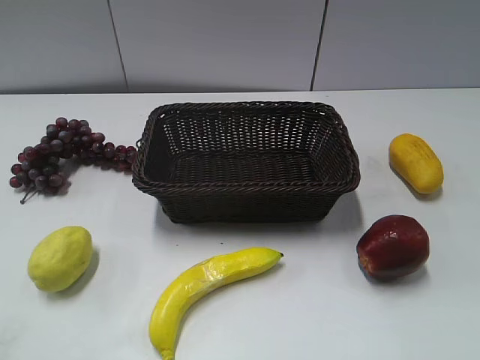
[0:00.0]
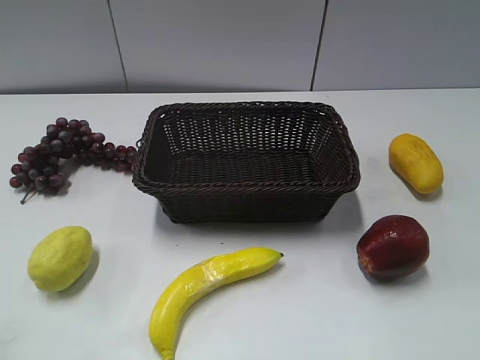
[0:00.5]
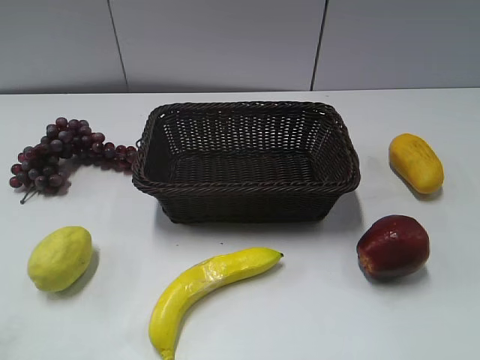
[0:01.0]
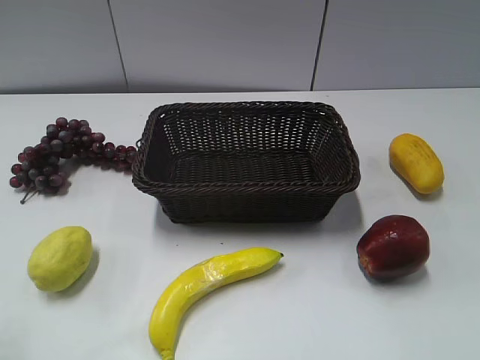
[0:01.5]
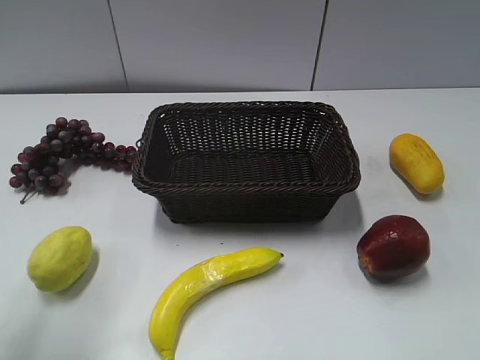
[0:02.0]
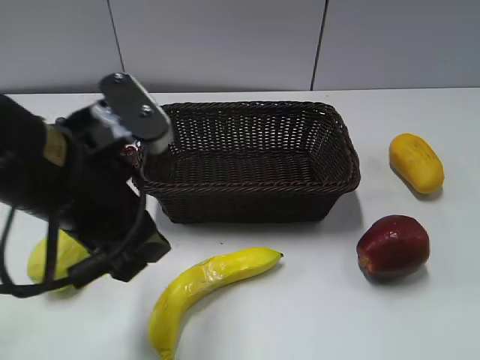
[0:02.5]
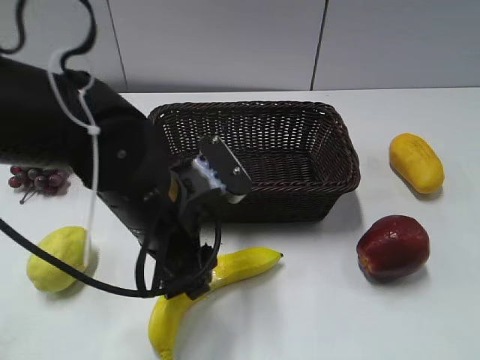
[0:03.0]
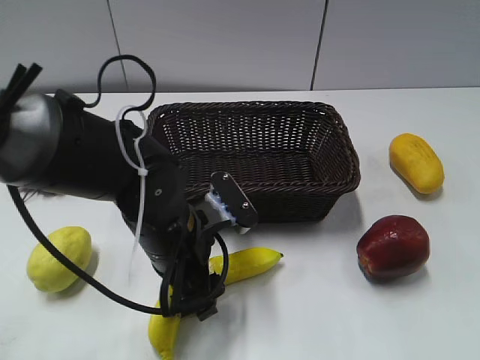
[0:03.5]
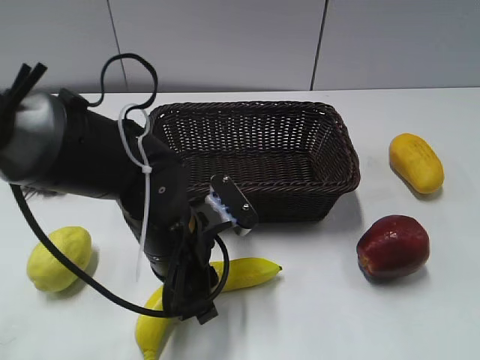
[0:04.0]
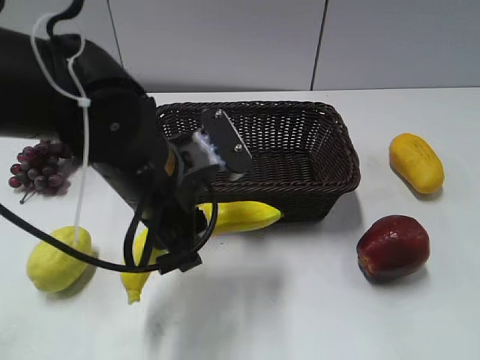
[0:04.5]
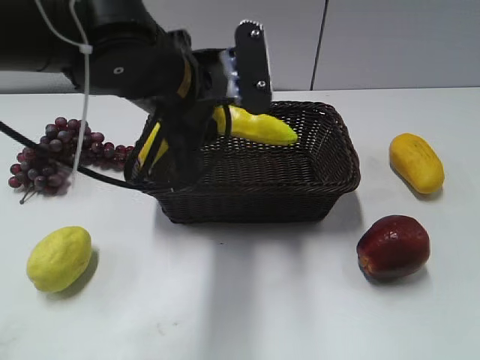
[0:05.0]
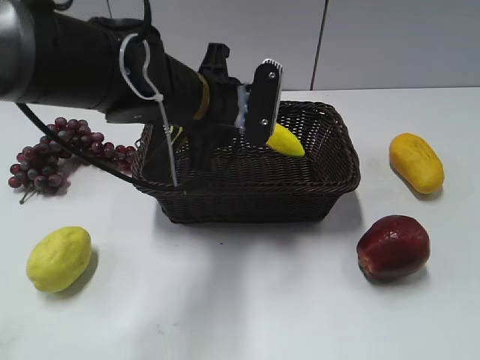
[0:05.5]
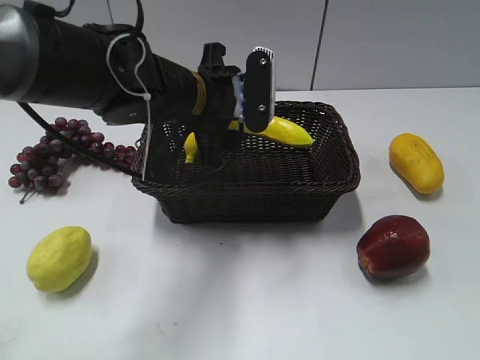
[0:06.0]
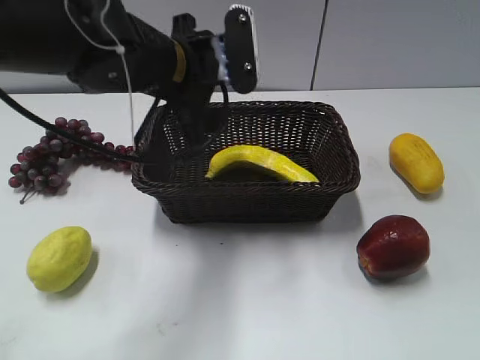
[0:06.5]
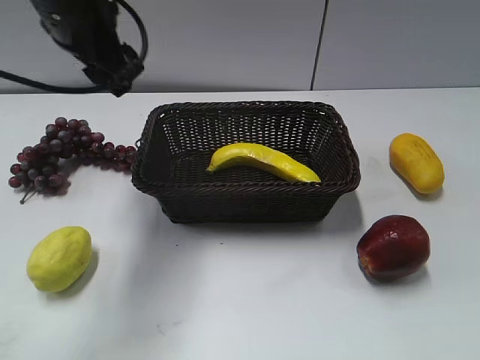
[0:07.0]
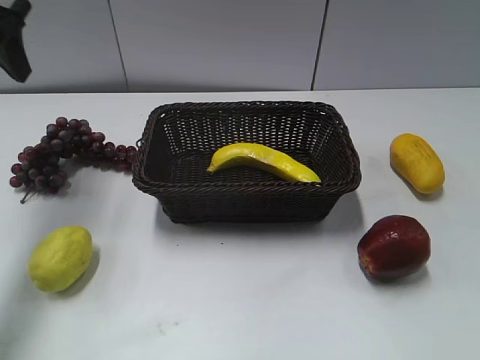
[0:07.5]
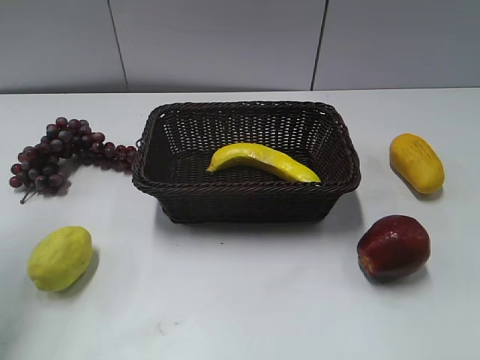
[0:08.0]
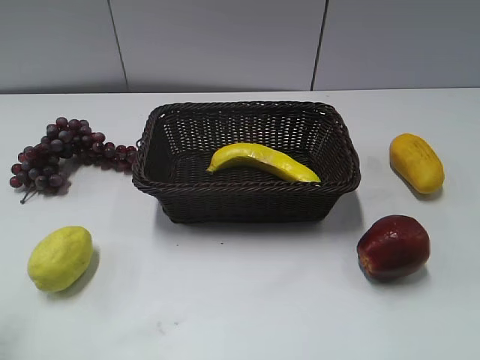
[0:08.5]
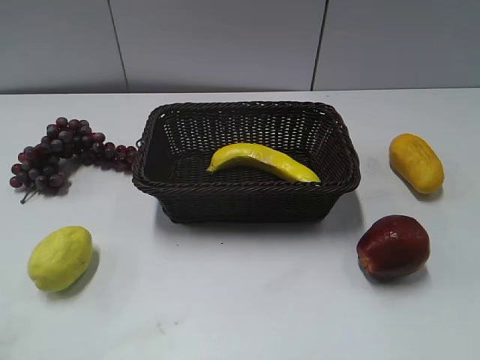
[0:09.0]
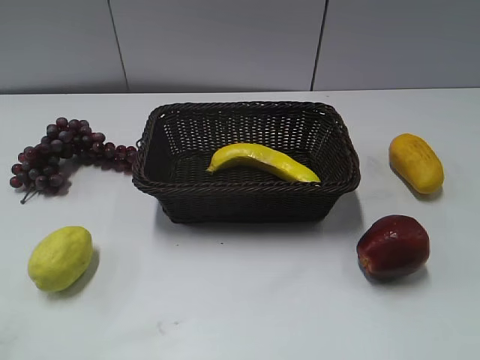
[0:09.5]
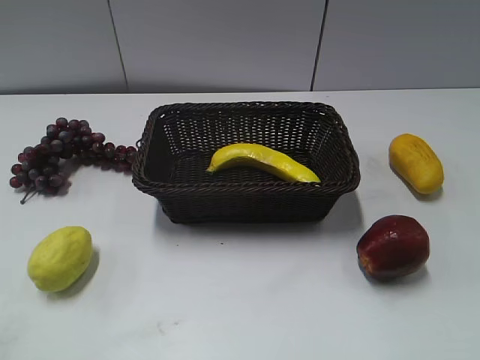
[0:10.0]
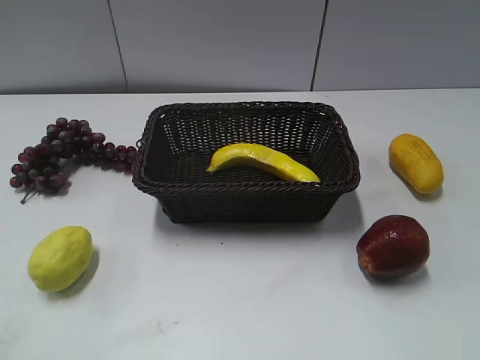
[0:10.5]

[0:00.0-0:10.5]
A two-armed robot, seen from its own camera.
Step, 0:02.0 to 0:04.0: Grasp the banana with left gripper.
Step, 0:04.5 to 0:06.5: Place the banana in the basket with left gripper.
0:02.0 to 0:04.0: The left gripper shifts approximately 25 cm to the right and downward, and closes.
0:04.0 to 0:06.5: The left gripper swings up and down, about 15 cm each way, with 2 reversals, and opens.
0:06.5 to 0:08.5: The left gripper is displaced to the left and backward by about 30 cm.
